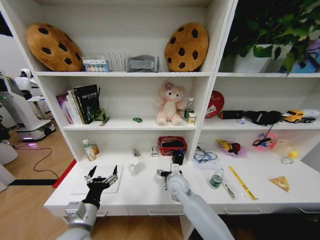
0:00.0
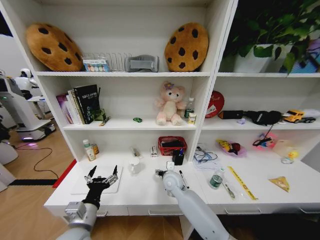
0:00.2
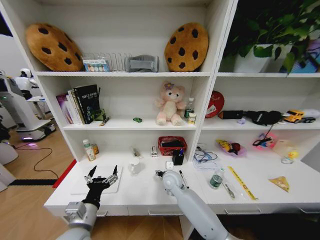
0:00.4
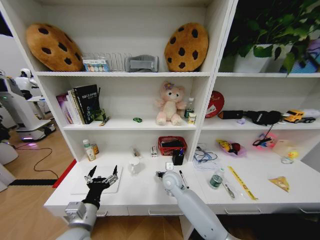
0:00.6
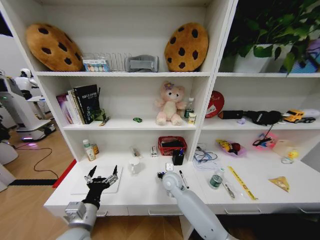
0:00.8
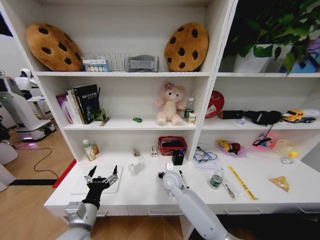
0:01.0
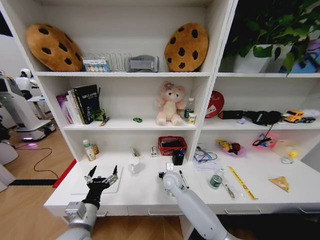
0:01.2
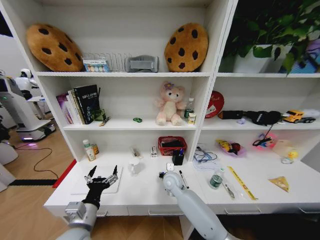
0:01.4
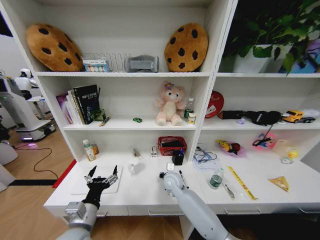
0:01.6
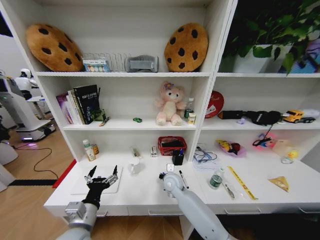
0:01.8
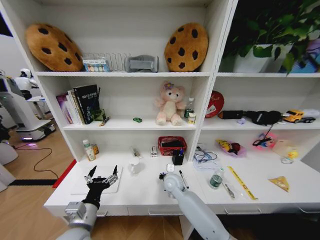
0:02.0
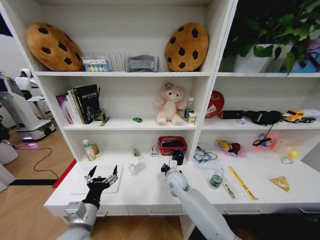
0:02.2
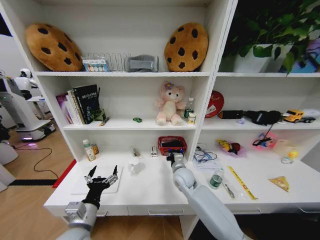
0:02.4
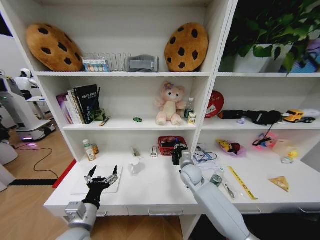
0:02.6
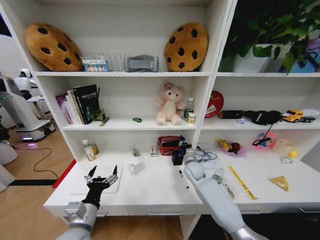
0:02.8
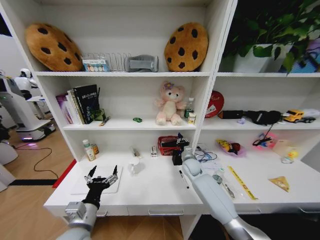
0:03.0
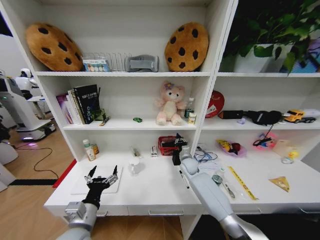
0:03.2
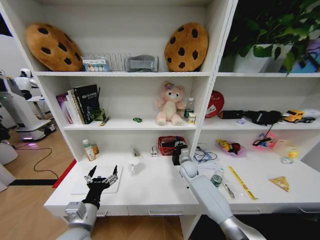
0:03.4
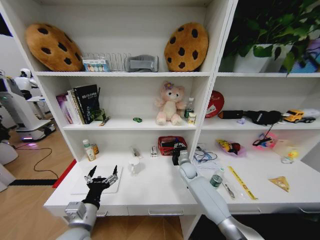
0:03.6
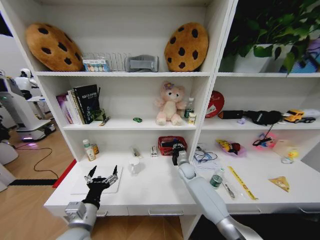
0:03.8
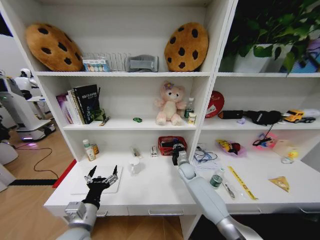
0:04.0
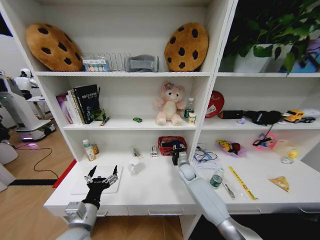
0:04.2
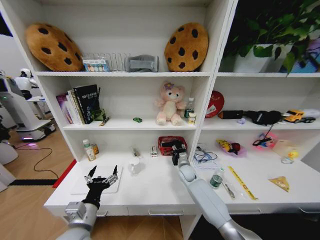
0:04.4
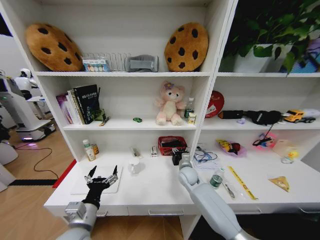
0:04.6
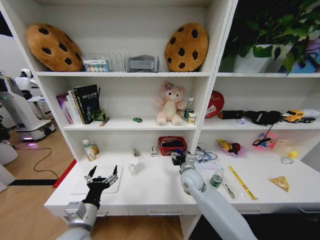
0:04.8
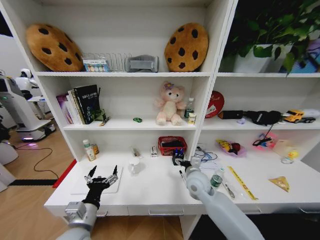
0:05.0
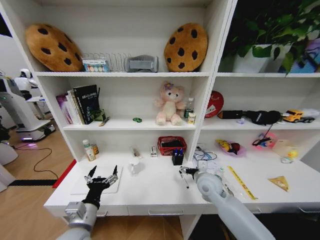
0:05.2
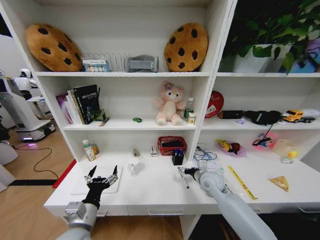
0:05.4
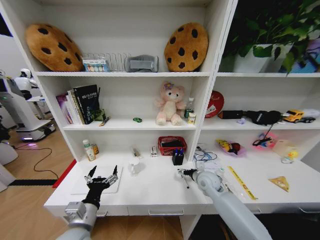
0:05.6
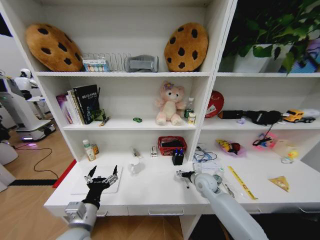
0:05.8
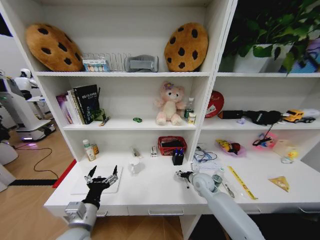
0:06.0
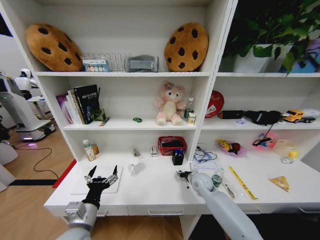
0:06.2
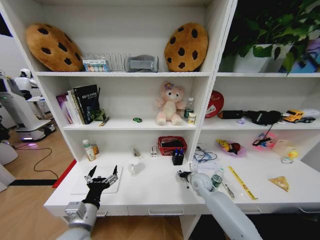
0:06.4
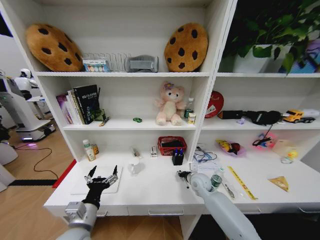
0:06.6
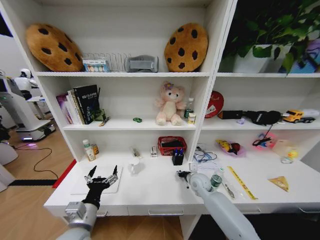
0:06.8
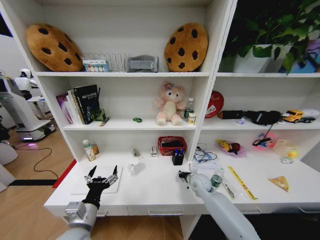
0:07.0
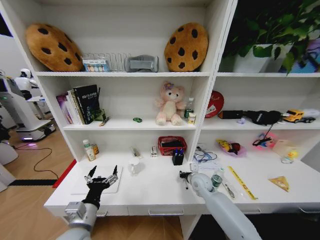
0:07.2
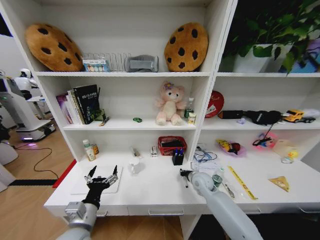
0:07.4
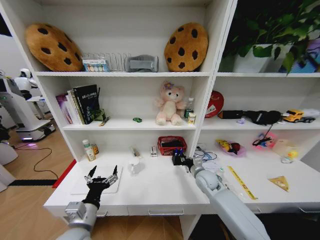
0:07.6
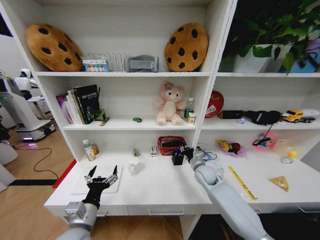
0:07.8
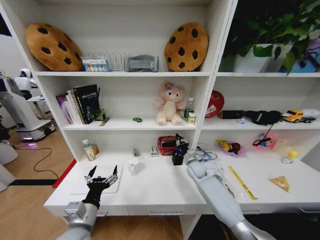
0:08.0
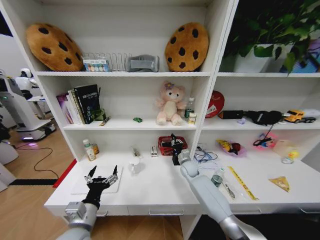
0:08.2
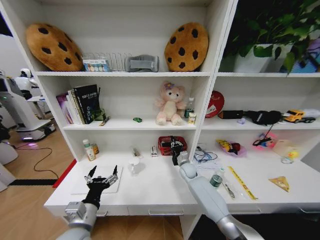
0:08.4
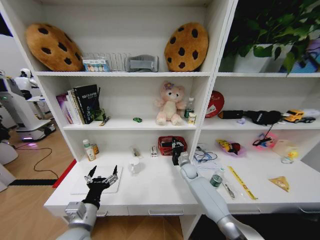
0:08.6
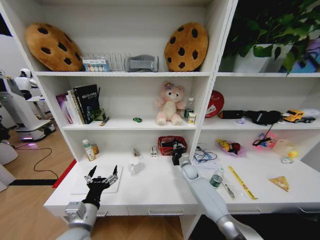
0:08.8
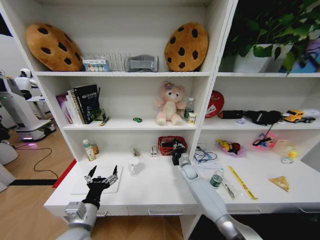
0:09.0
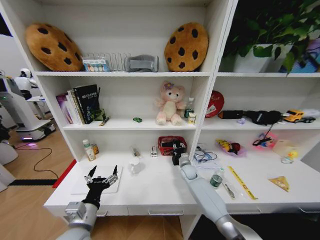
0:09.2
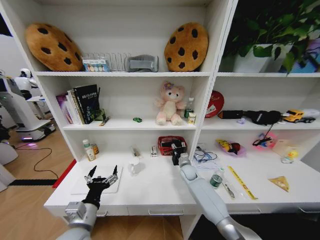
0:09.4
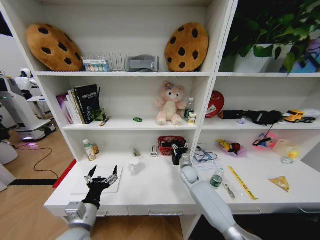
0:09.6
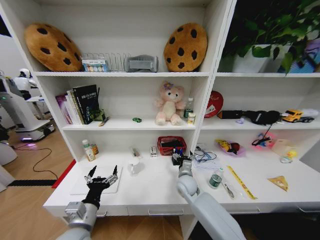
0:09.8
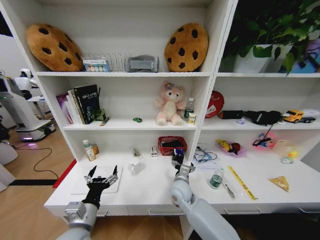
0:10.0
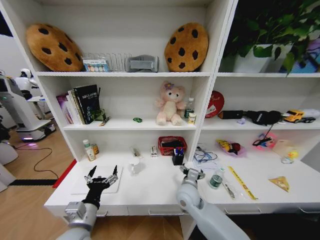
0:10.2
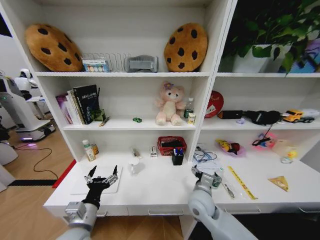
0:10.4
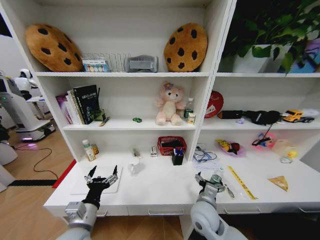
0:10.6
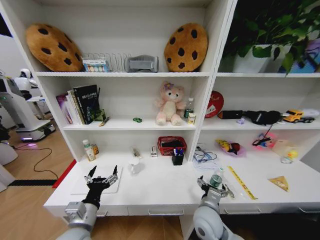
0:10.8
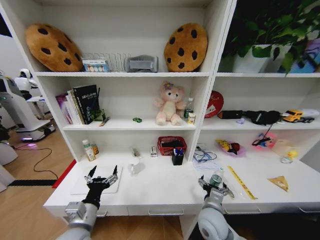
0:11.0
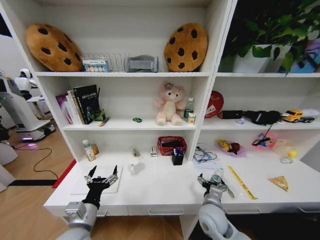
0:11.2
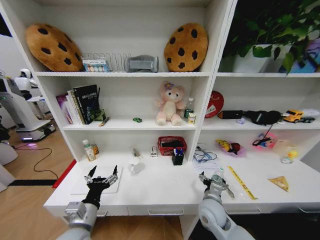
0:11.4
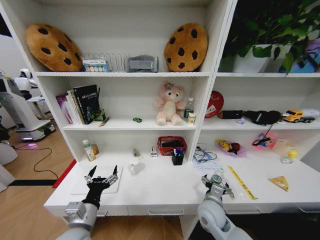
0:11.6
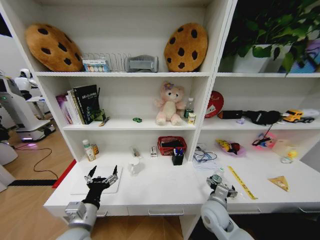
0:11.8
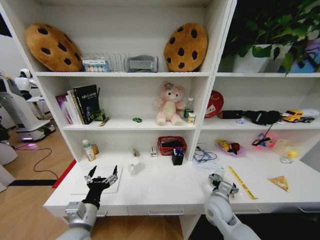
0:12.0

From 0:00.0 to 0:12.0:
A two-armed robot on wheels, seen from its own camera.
Task of the whole recording: Organize the objects on the table.
From 0:00.0 to 0:01.6: The right gripper closes.
From 0:01.6 to 0:03.0: The right gripper goes some 15 cm to the right and forward.
From 0:03.0 to 0:04.4: The right gripper ends up about 5 cm from where it was, and opens.
From 0:04.4 to 0:06.0: The right gripper travels backward and to the right by roughly 10 cm, and opens.
From 0:06.0 to 0:07.6: The right gripper closes.
From 0:07.6 to 0:09.0: The right gripper goes roughly 15 cm forward and downward.
From 0:09.0 to 0:10.4: The right gripper is displaced backward and upward by some 25 cm, and opens its fingers.
From 0:10.4 to 0:12.0: The right gripper goes approximately 10 cm to the right.

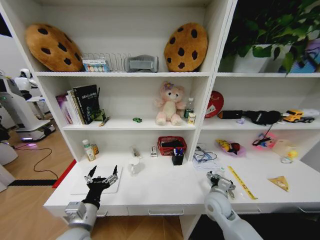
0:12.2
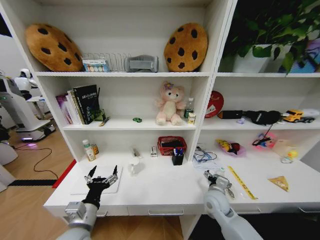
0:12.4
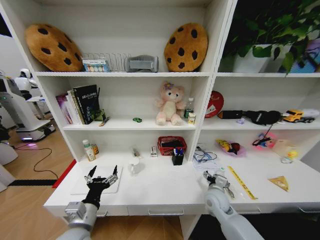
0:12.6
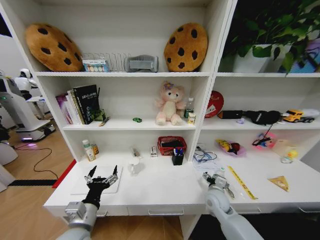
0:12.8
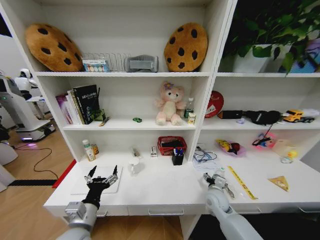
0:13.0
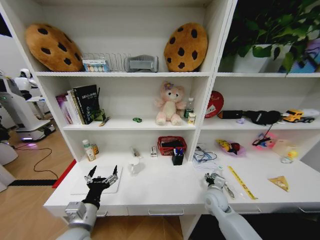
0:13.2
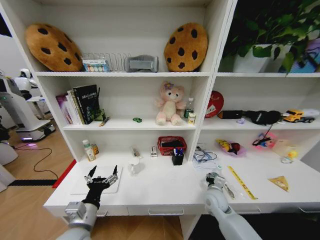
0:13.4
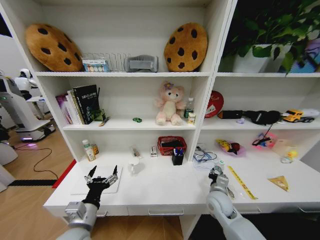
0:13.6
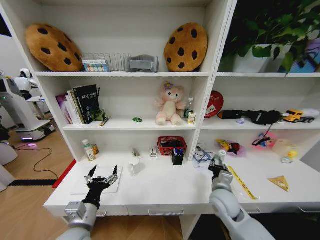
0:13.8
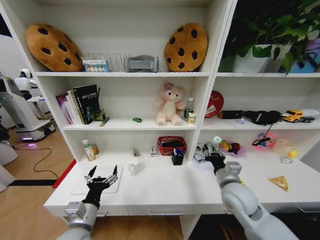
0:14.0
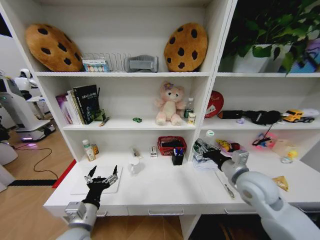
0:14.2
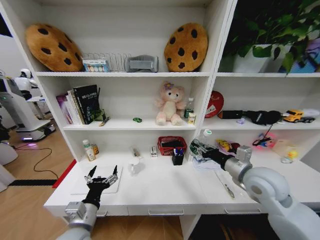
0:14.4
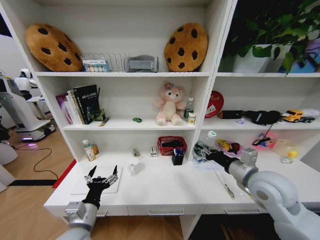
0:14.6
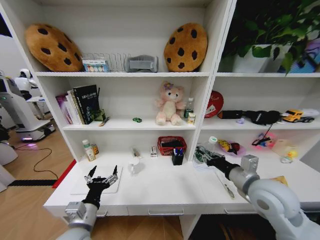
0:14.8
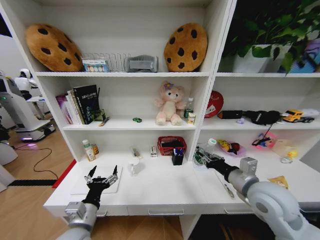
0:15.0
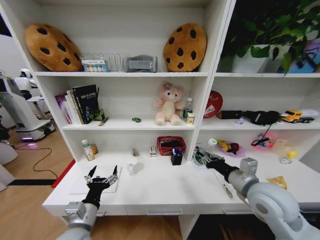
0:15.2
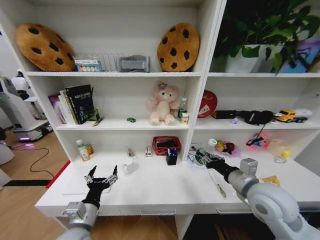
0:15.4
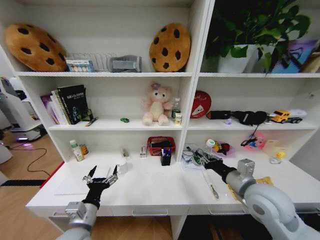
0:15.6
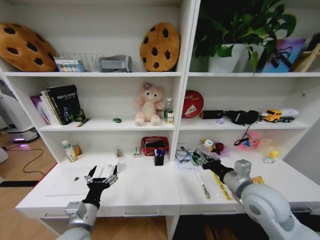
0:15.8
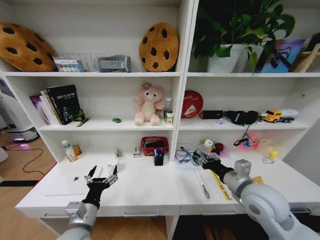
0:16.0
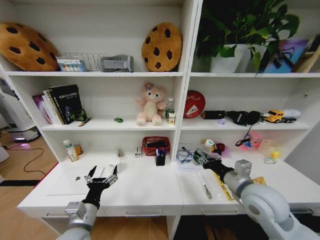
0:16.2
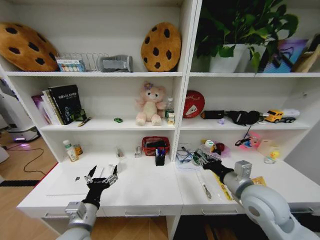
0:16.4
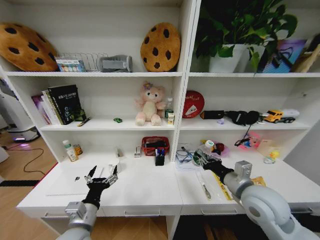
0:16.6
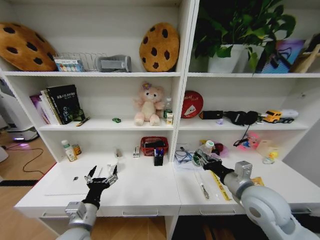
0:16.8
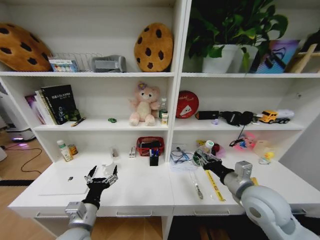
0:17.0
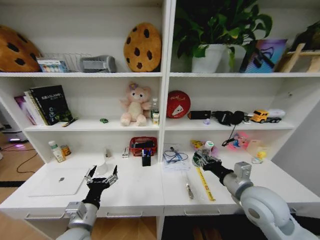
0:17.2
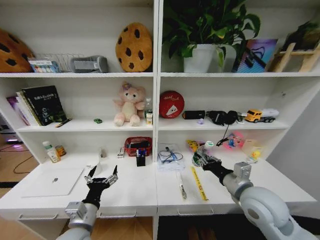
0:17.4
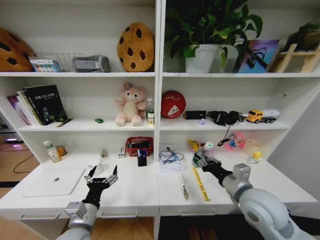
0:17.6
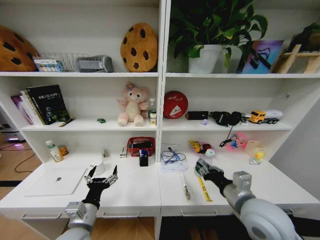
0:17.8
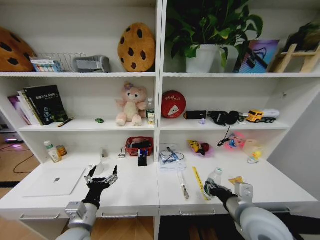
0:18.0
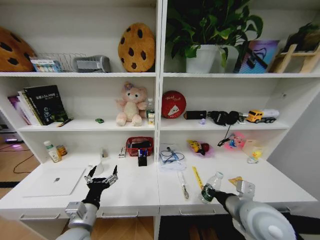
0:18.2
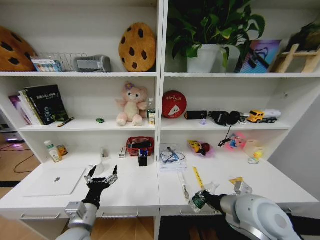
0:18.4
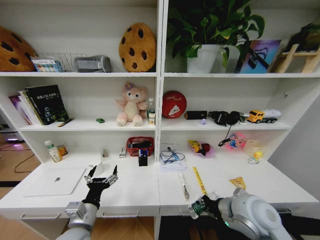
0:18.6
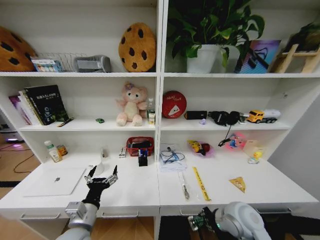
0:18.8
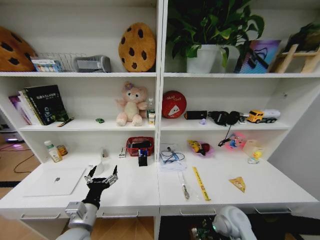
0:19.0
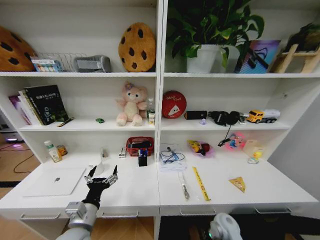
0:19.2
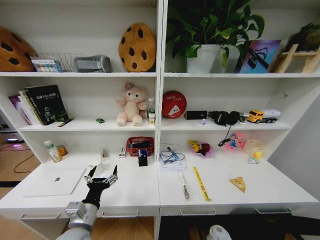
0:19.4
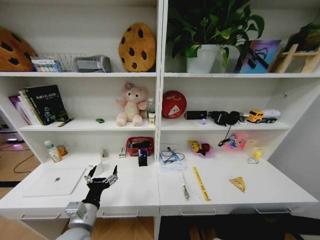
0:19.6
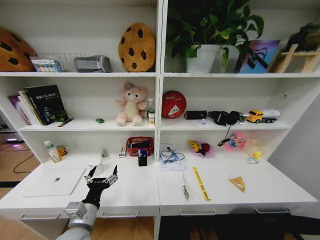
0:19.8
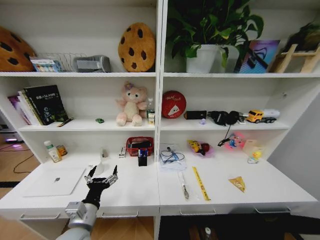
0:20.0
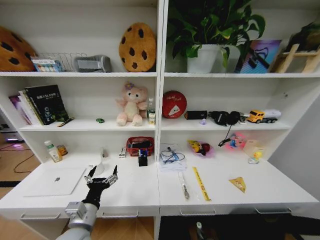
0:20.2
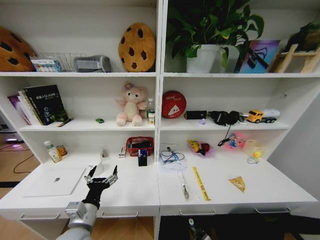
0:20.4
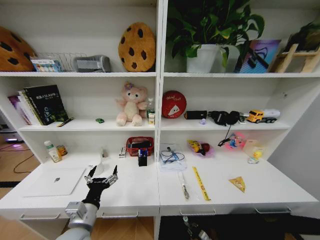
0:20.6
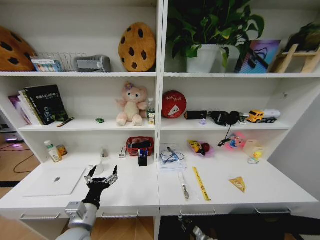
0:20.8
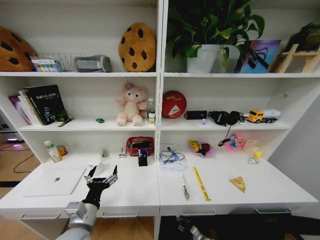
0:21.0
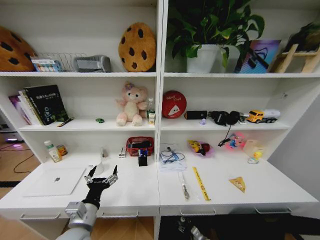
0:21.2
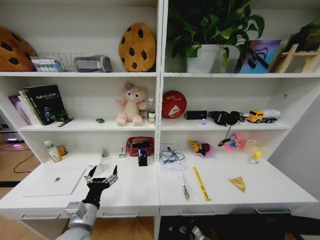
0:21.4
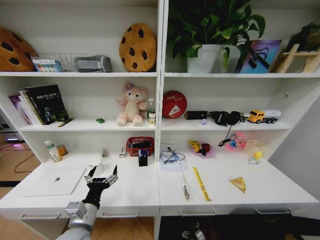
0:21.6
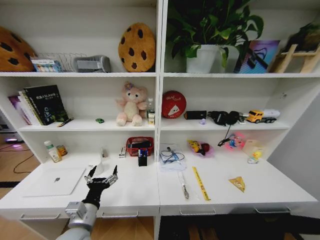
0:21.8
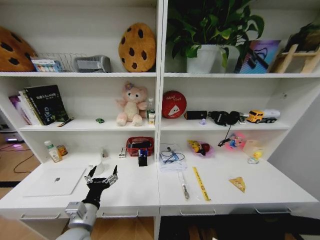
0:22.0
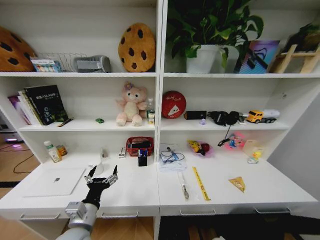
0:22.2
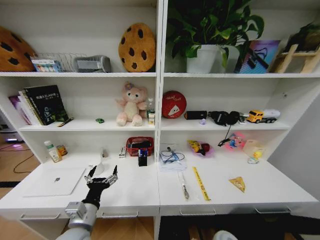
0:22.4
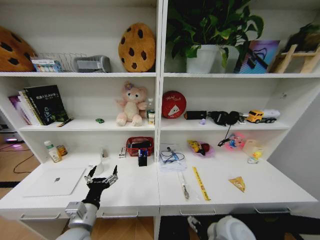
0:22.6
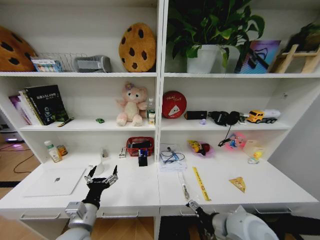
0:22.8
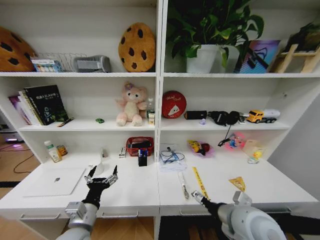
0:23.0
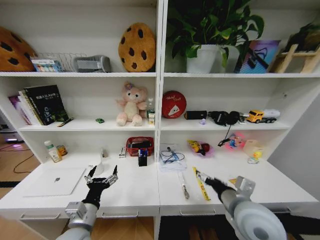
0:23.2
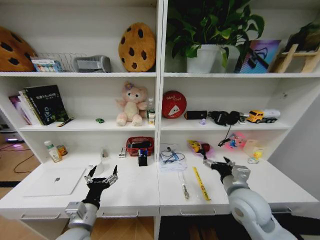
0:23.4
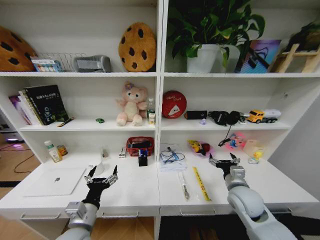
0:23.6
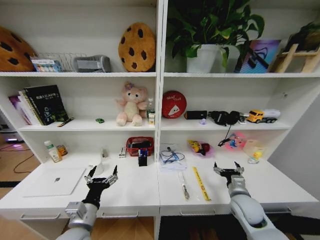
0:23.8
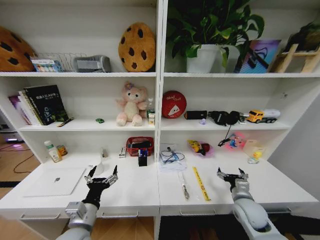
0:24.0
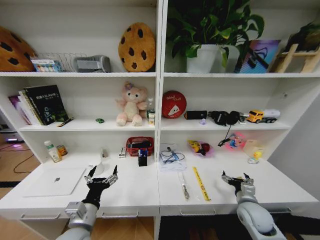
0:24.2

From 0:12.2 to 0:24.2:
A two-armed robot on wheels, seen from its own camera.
Task of the whole recording: Organize the objects on the table.
From 0:12.2 to 0:13.8: The right gripper ends up some 5 cm from where it was, and closes up.
From 0:13.8 to 0:15.2: The right gripper shifts roughly 15 cm upward and to the right.
From 0:16.6 to 0:18.2: The right gripper changes place by about 5 cm.
From 0:18.2 to 0:19.8: The right gripper is displaced downward by some 50 cm.
From 0:21.2 to 0:22.6: The right gripper moves upward, approximately 40 cm, and opens.
From 0:22.6 to 0:24.2: The right gripper moves to the right, downward and forward, some 20 cm.
